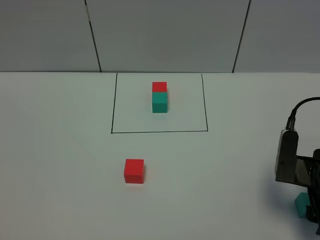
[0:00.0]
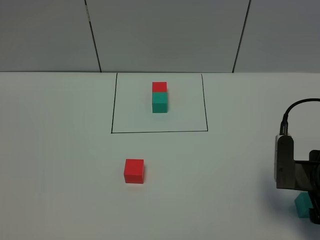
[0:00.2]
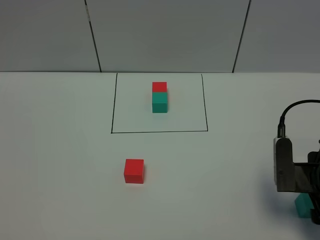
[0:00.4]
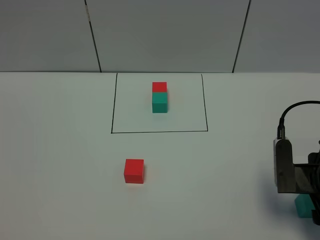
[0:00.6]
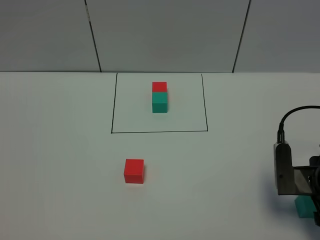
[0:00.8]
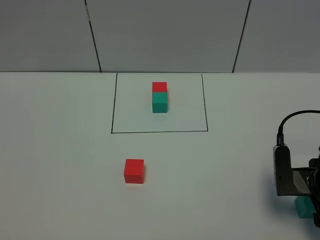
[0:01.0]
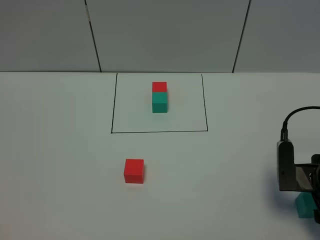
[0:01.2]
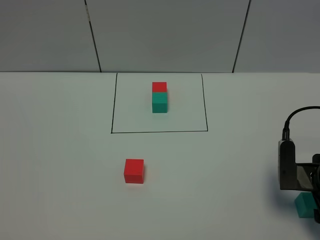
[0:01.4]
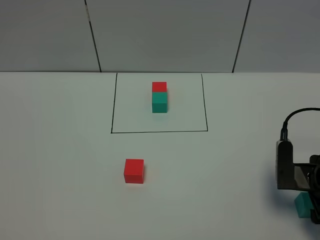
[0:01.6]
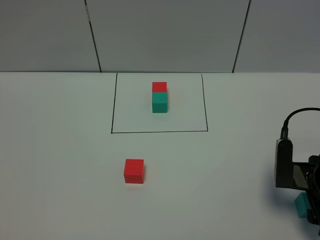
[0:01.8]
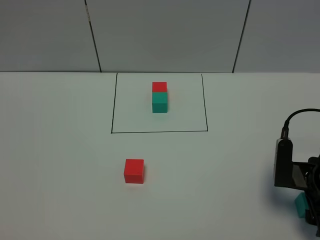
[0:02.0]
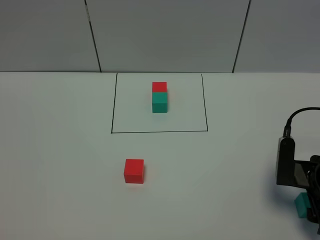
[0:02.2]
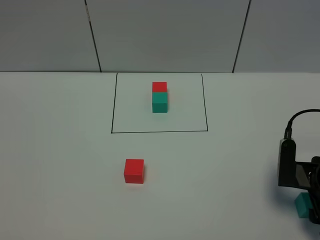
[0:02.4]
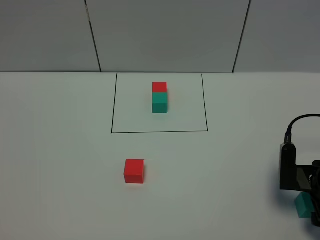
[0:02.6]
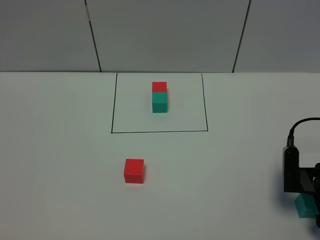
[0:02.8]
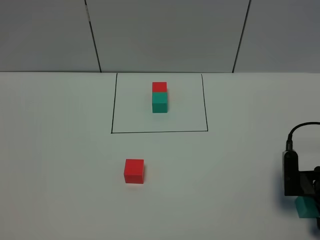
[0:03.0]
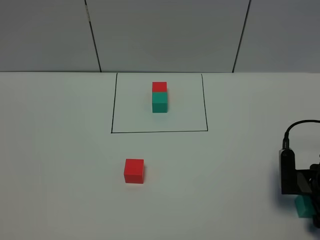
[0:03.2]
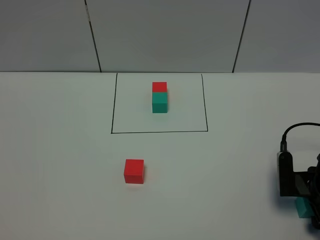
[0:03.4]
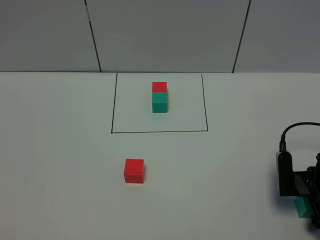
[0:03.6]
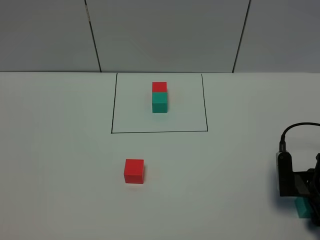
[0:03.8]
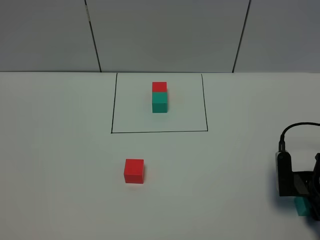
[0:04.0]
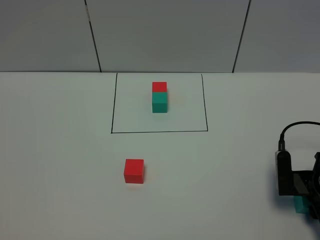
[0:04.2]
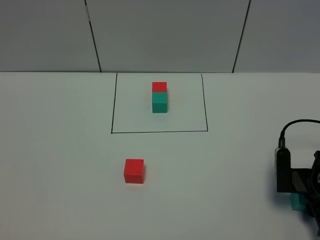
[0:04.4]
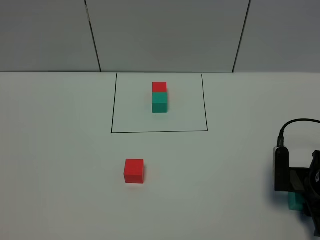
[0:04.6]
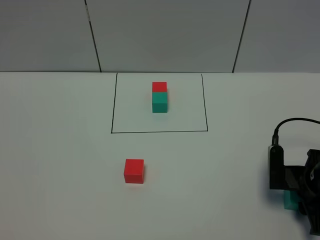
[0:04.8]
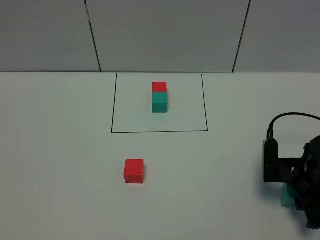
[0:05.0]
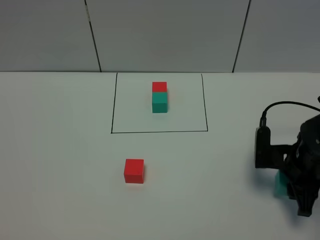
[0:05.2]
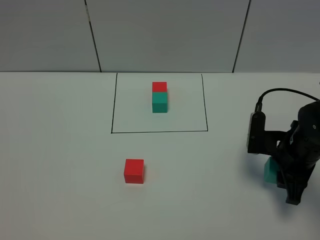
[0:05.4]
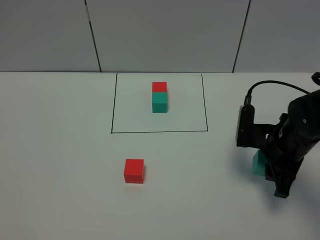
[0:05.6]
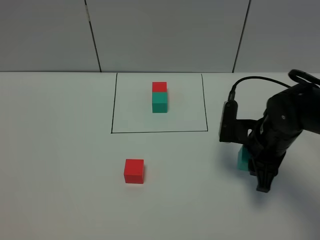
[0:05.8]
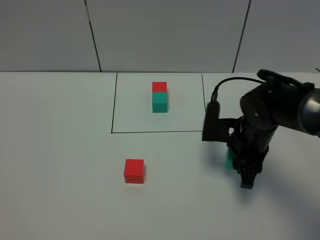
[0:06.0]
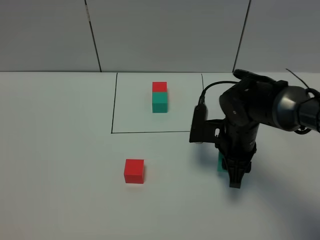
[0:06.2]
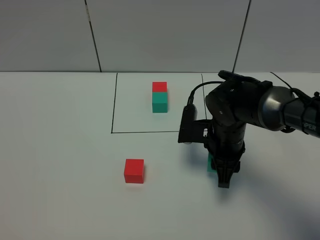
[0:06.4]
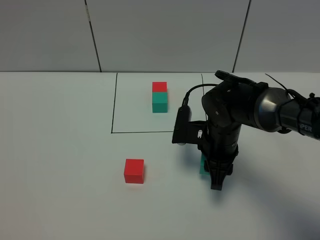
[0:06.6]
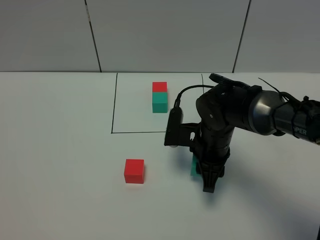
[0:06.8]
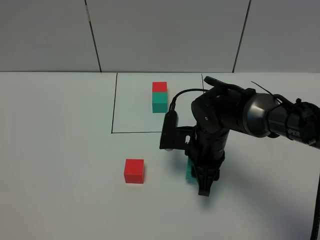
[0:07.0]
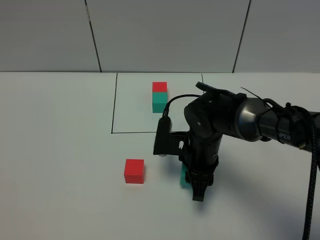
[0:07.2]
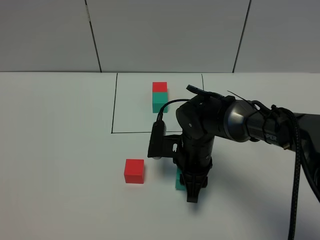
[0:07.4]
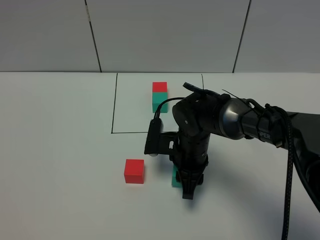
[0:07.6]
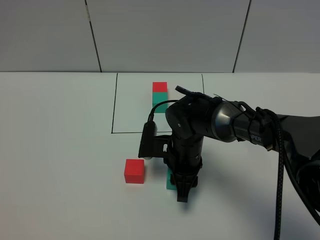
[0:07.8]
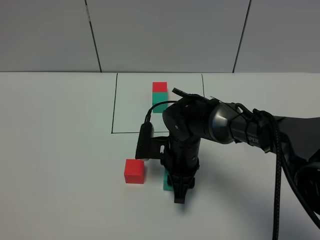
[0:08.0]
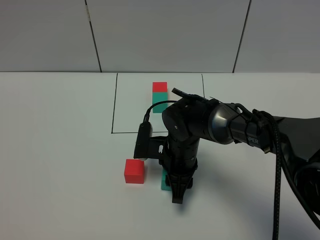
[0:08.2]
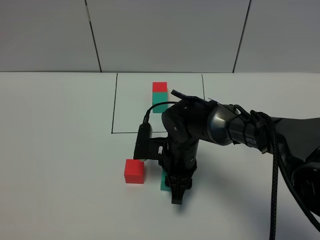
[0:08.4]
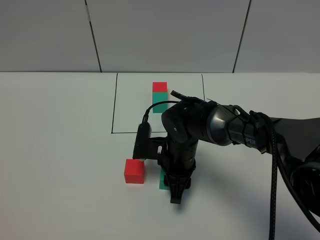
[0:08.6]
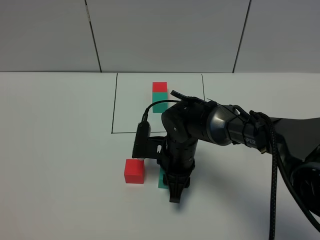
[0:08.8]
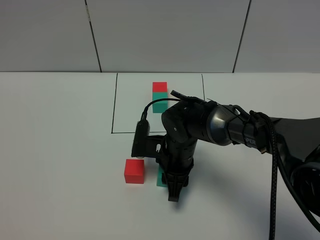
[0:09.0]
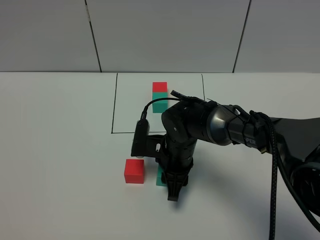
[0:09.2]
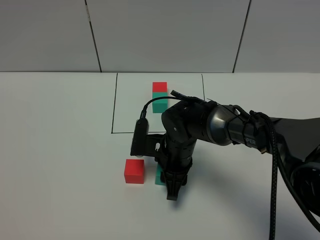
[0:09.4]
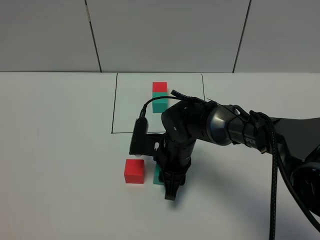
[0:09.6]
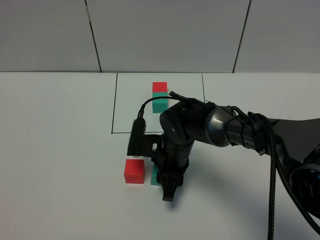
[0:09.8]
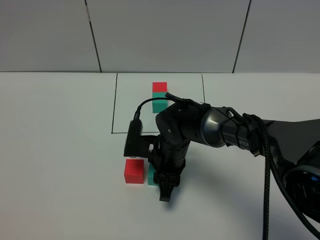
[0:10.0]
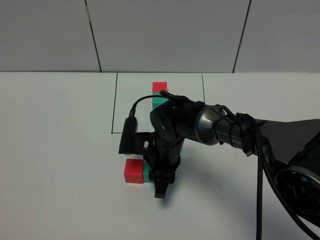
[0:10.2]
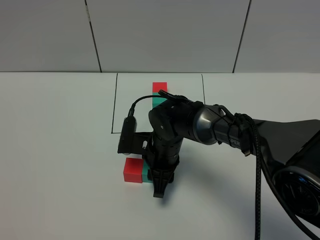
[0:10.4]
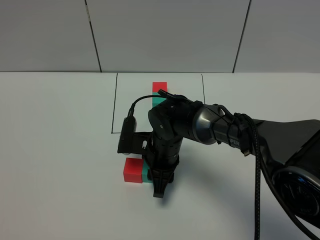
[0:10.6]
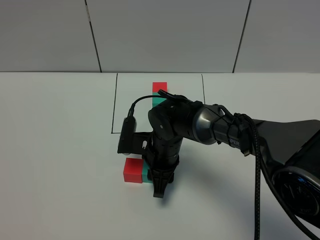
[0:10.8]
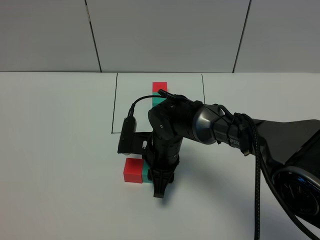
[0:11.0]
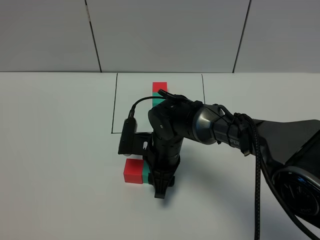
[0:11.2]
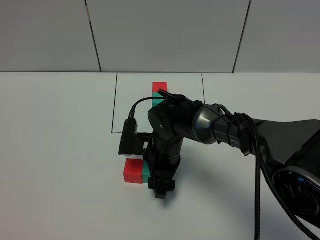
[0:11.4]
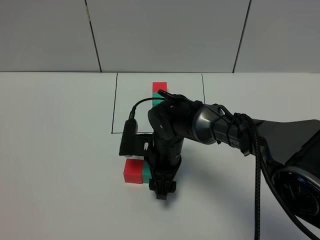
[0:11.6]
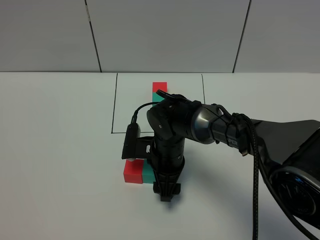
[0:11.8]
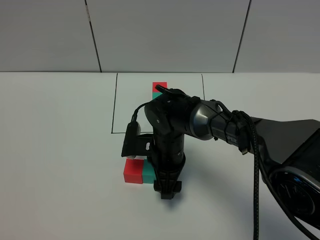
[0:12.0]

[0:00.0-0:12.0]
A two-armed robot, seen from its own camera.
Task of the whole recording: According to the building block template in front, assemble the scattered blocks together.
0:00.0 to 0:01.6: The grippers stay close to where they were, moving slightly.
0:01.6 to 0:03.0: The grippers make only small movements.
0:03.0 to 0:04.4: The right gripper closes.
0:04.4 to 0:06.0: The right gripper heads to the left, forward and upward, covering some 15 cm.
0:06.0 to 0:07.6: The right gripper heads to the left, covering about 10 cm.
0:07.6 to 0:10.4: The grippers move only a little.
0:10.4 to 0:12.0: The right gripper opens its fingers.

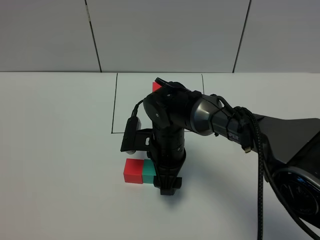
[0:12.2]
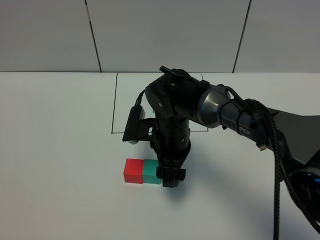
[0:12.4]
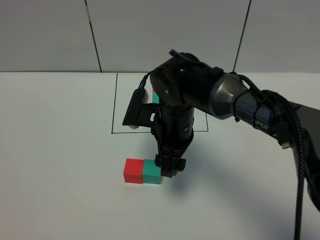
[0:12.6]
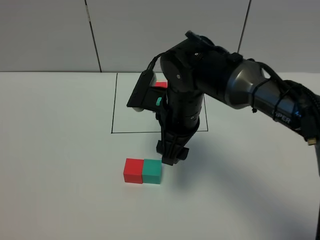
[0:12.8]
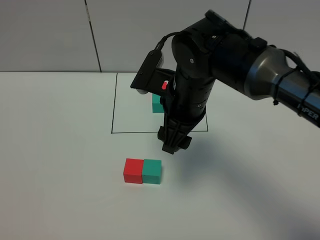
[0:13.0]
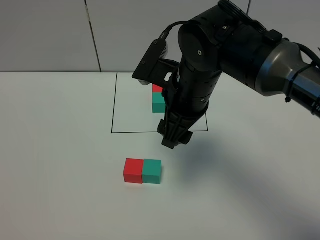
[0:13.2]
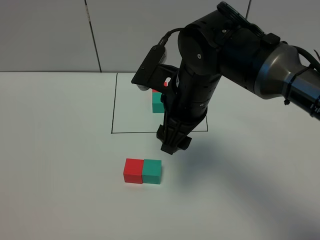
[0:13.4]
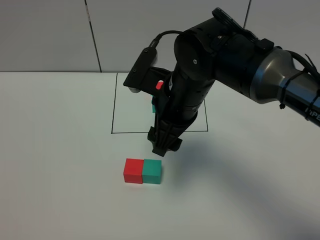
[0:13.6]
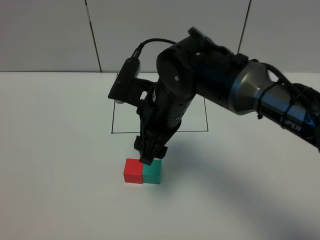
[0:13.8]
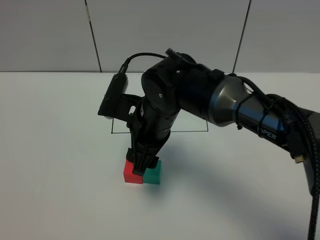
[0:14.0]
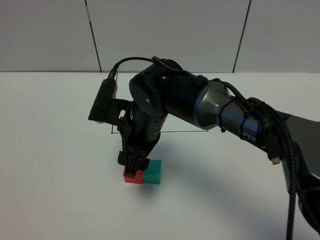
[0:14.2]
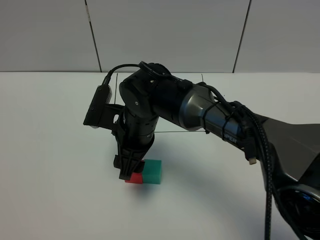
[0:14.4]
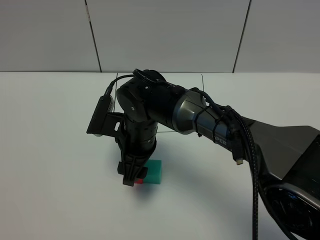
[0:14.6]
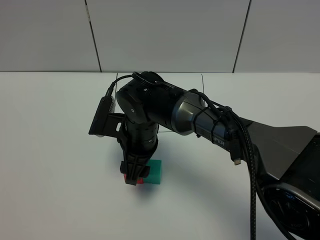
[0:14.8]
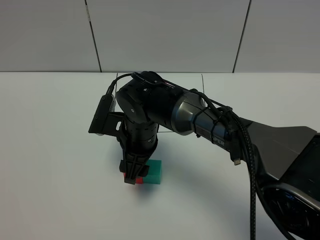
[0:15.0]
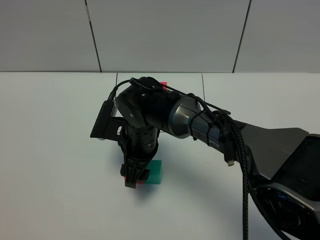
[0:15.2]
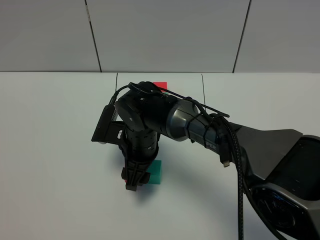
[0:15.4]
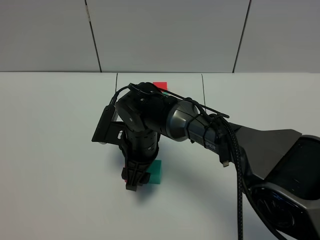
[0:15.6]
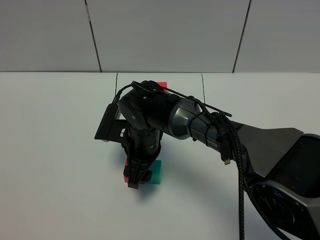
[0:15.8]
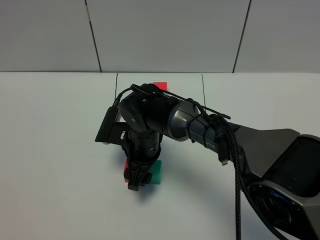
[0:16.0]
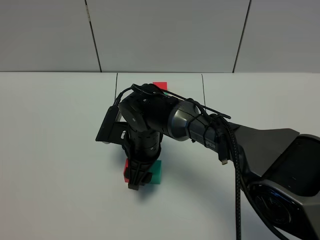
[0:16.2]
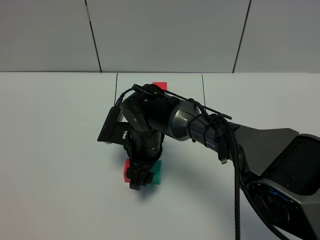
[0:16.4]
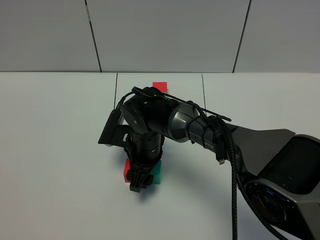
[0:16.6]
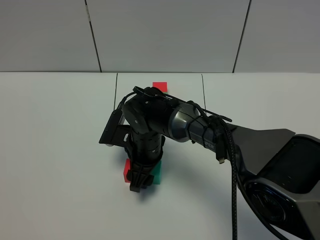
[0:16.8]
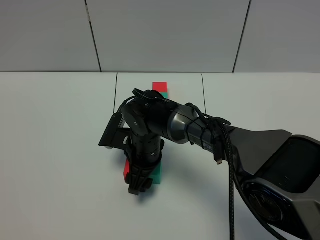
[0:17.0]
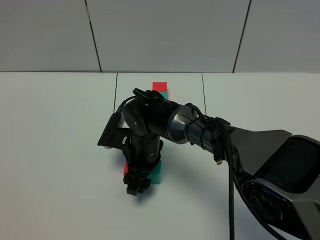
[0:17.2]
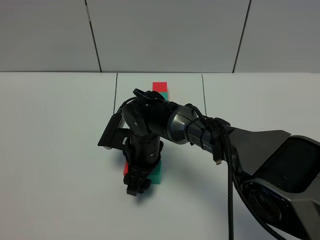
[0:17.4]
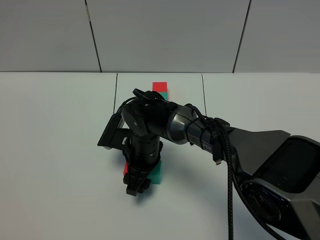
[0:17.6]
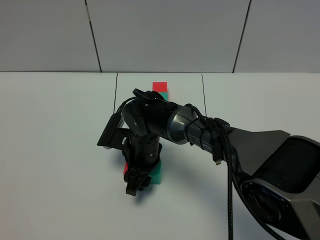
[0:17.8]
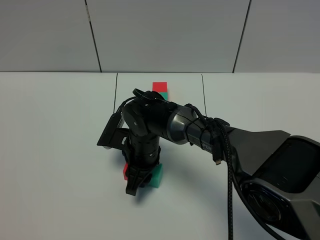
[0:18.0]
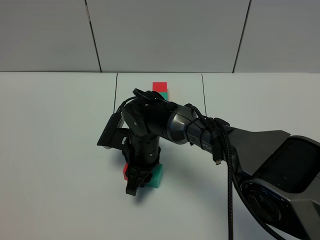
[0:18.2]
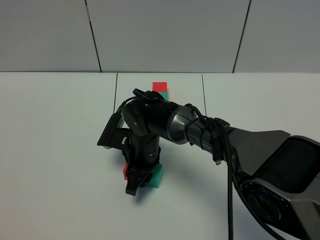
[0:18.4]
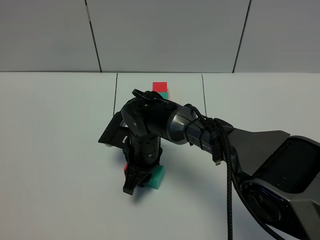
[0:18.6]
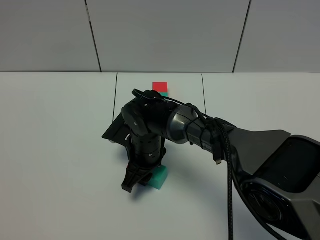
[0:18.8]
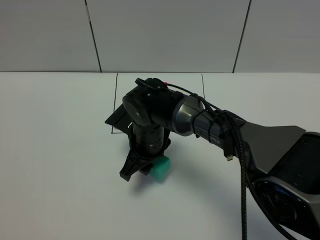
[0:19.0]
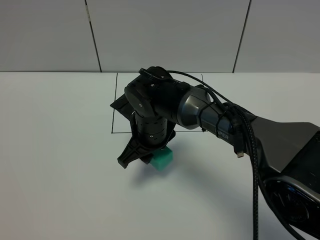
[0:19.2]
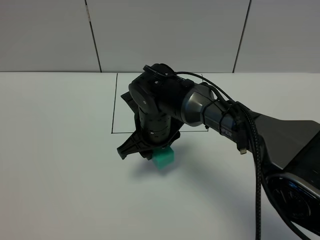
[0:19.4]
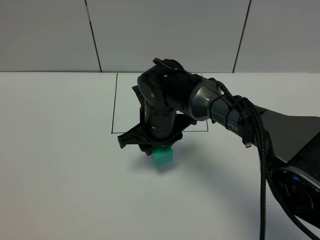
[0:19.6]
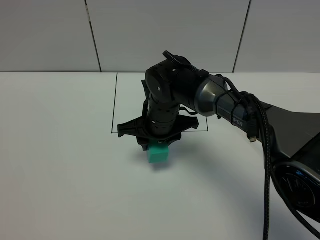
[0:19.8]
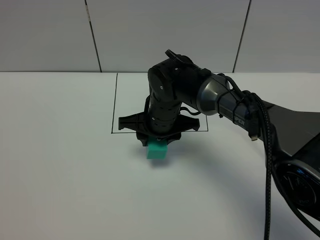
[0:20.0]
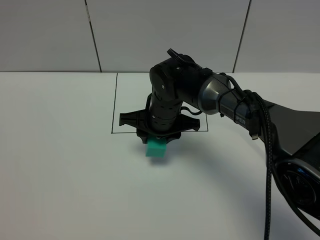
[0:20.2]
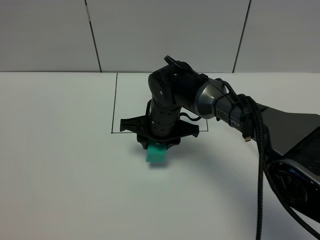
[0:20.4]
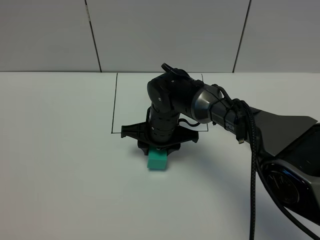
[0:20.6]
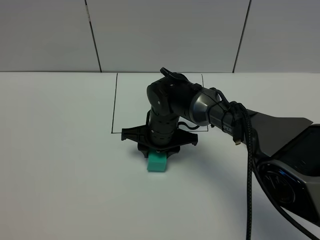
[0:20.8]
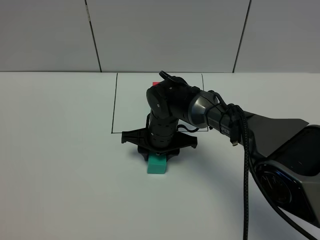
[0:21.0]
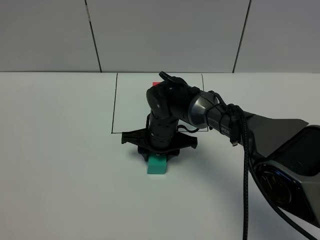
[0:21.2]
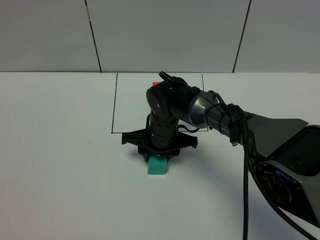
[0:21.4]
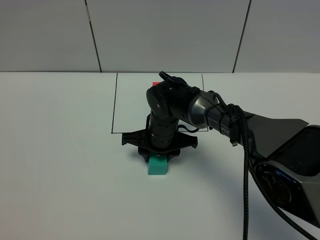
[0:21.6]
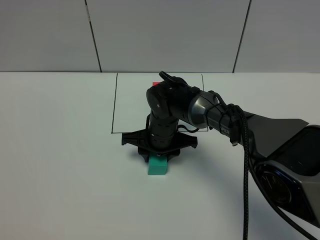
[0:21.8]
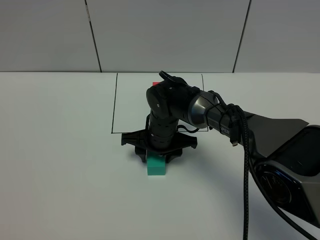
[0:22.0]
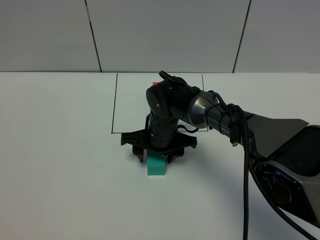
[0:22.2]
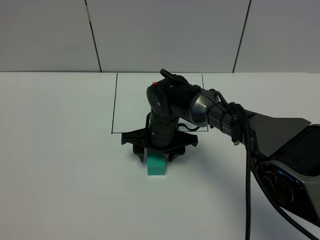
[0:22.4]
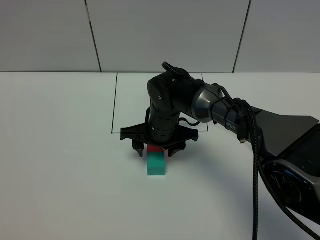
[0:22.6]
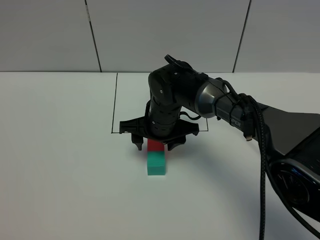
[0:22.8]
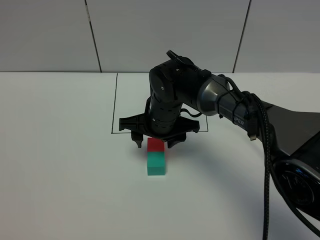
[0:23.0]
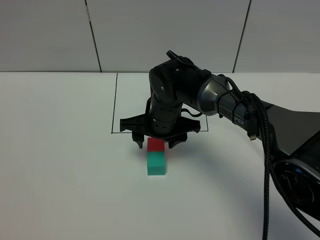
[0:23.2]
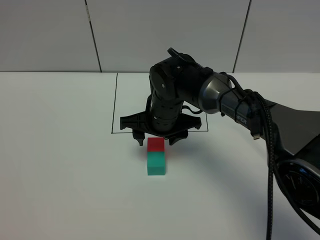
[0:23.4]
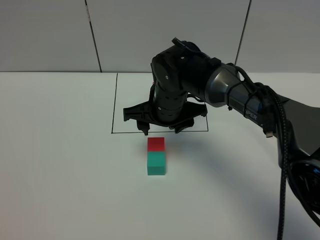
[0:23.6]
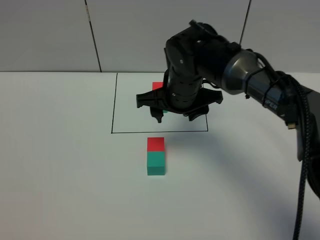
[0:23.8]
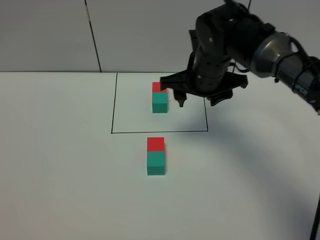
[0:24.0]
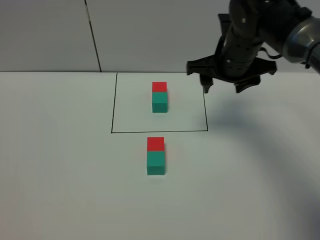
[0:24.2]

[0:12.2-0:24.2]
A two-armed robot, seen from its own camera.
Task of the whole recording: According to the building block template in front, assemble the scattered blocks together.
Step, 0:13.2 to 0:23.6: Adjust the pose of the building blocks.
0:12.2 to 0:13.8: The right gripper is displaced upward by some 10 cm.
0:13.8 to 0:15.2: The right gripper shifts roughly 10 cm downward.
0:15.2 to 0:16.6: The grippers stay close to where they were, moving slightly.
0:16.6 to 0:18.2: The right gripper closes.
0:18.2 to 0:19.8: The right gripper heads upward, covering approximately 5 cm.
0:19.8 to 0:21.2: The right gripper is displaced downward by roughly 5 cm.
0:21.2 to 0:22.6: The right gripper opens.
0:22.6 to 0:24.2: The right gripper travels to the right and upward by about 20 cm.
